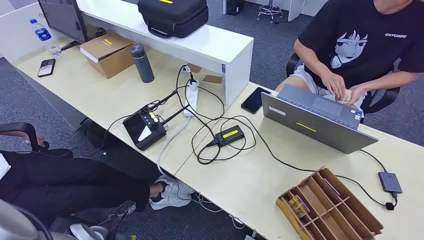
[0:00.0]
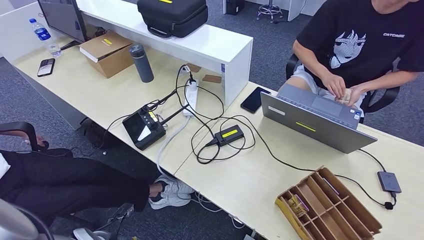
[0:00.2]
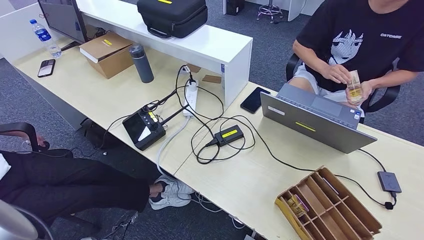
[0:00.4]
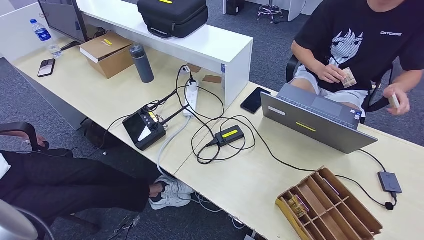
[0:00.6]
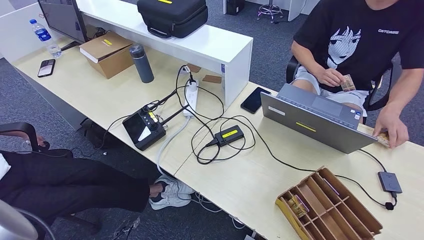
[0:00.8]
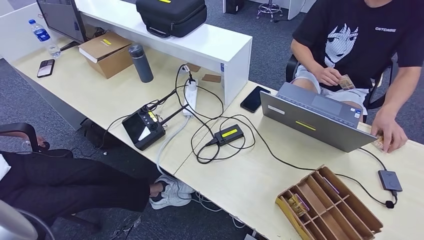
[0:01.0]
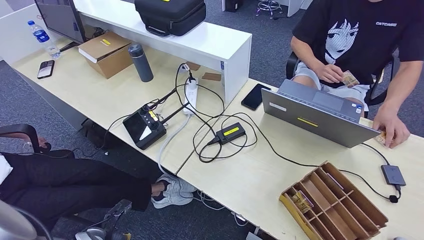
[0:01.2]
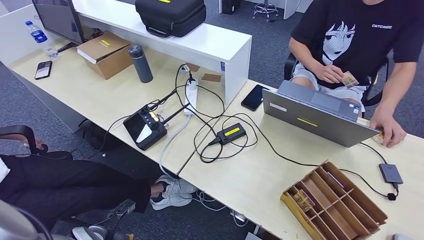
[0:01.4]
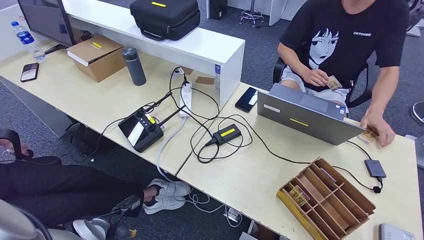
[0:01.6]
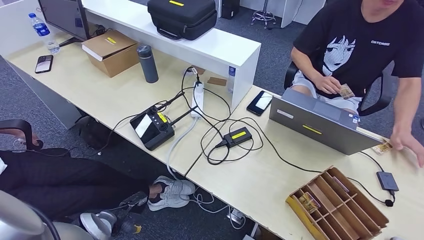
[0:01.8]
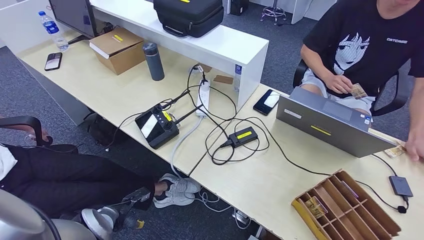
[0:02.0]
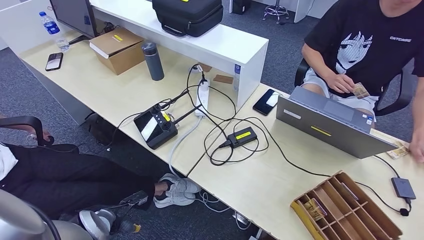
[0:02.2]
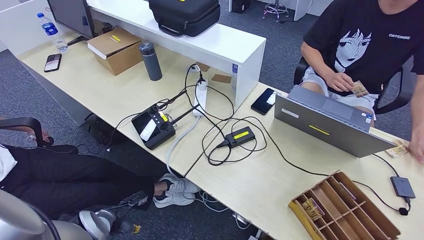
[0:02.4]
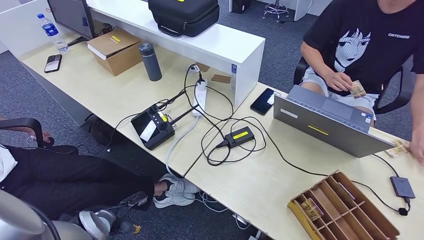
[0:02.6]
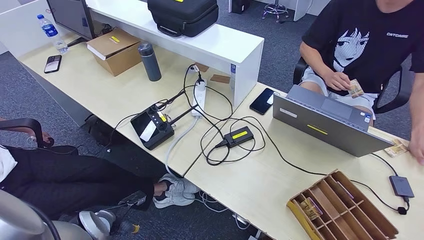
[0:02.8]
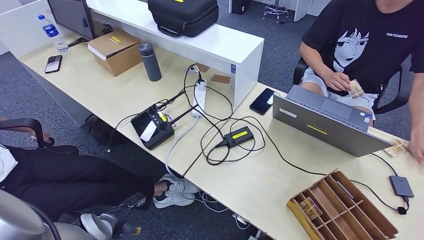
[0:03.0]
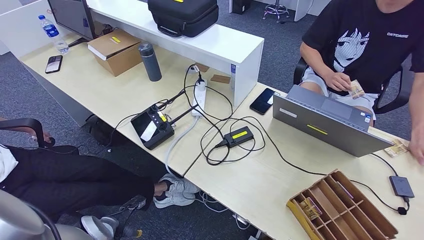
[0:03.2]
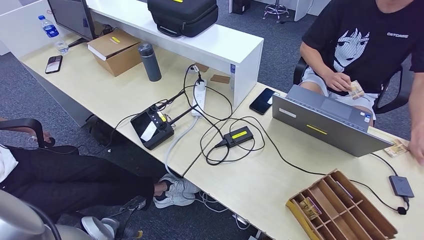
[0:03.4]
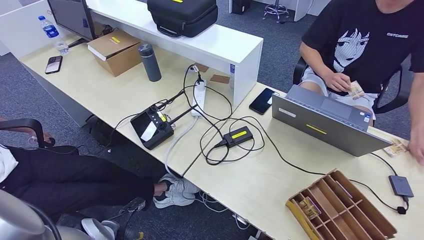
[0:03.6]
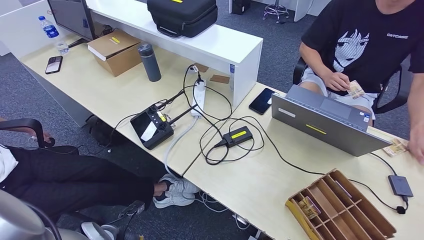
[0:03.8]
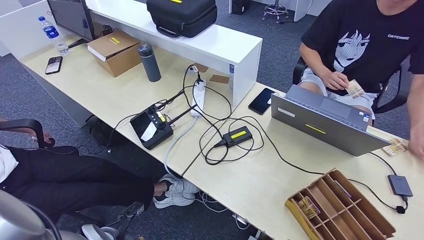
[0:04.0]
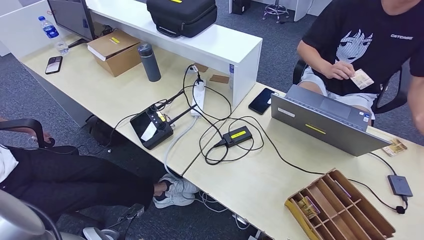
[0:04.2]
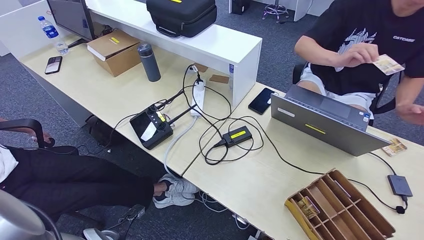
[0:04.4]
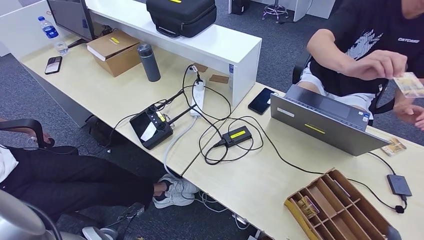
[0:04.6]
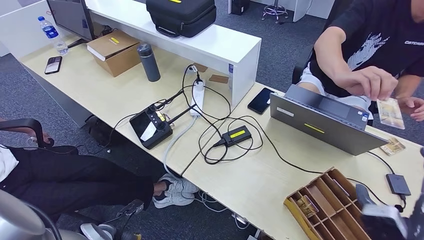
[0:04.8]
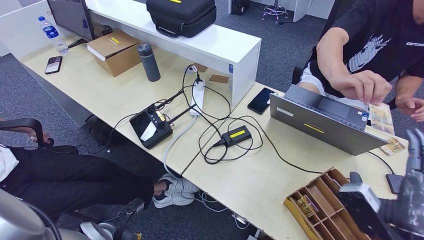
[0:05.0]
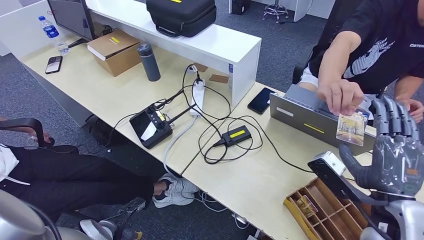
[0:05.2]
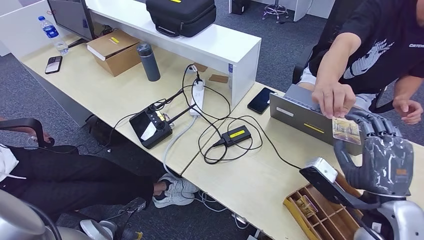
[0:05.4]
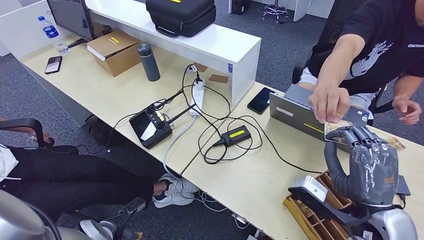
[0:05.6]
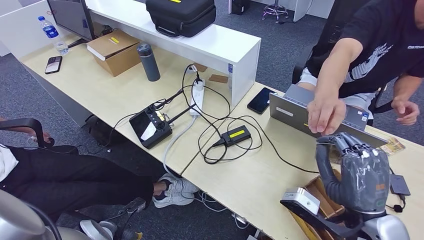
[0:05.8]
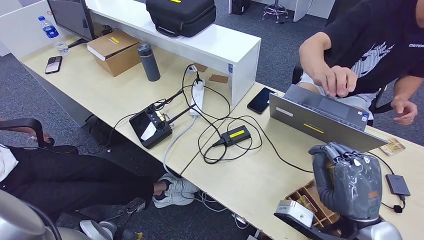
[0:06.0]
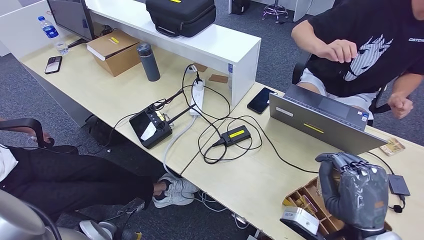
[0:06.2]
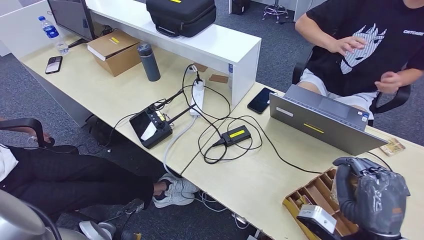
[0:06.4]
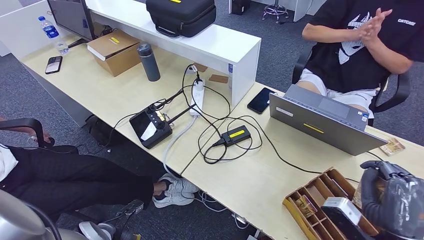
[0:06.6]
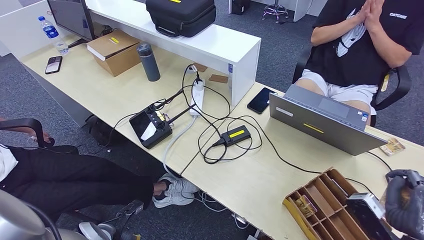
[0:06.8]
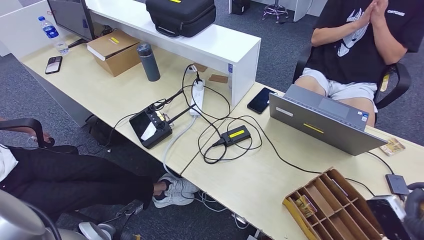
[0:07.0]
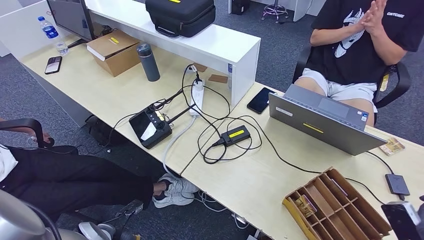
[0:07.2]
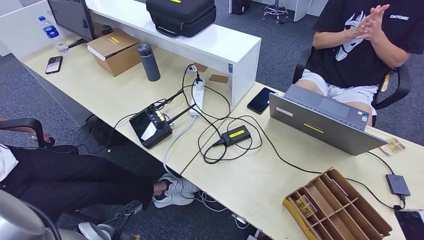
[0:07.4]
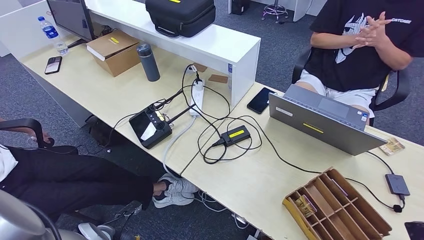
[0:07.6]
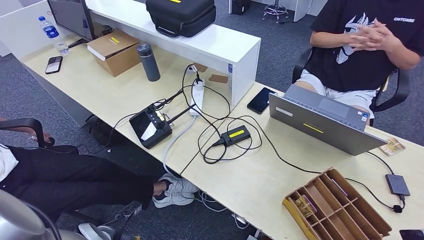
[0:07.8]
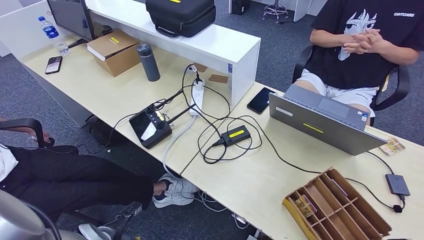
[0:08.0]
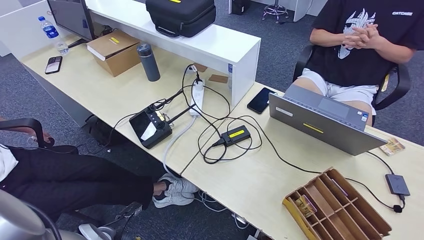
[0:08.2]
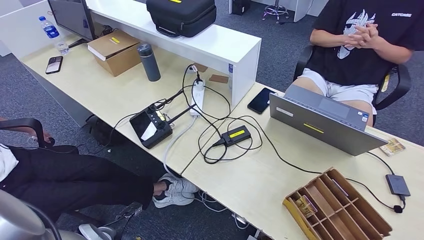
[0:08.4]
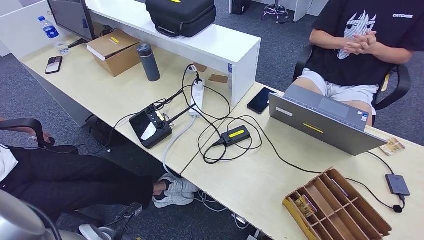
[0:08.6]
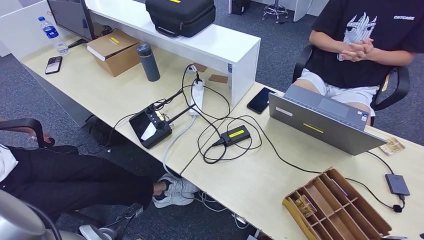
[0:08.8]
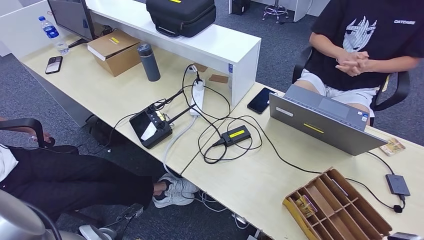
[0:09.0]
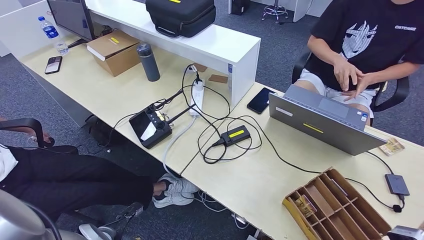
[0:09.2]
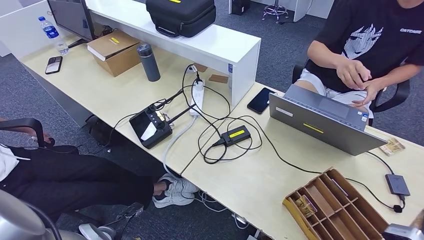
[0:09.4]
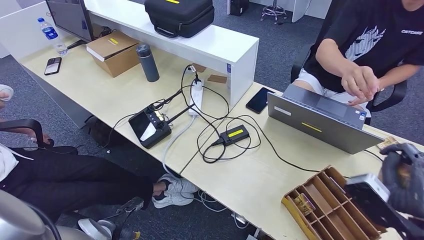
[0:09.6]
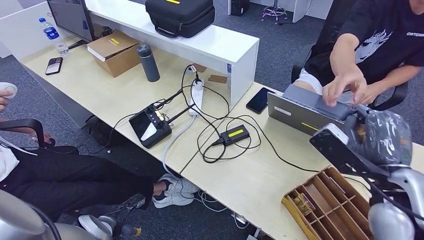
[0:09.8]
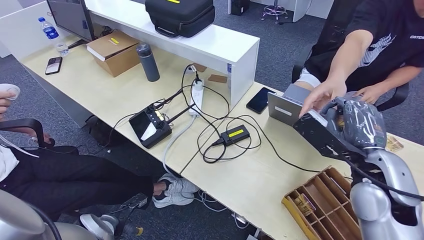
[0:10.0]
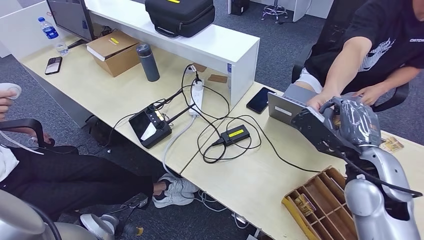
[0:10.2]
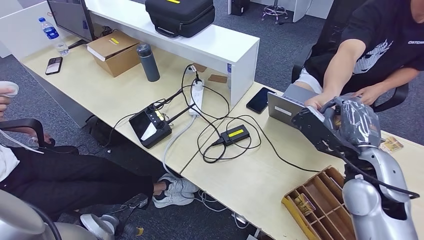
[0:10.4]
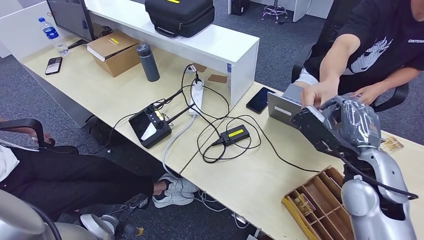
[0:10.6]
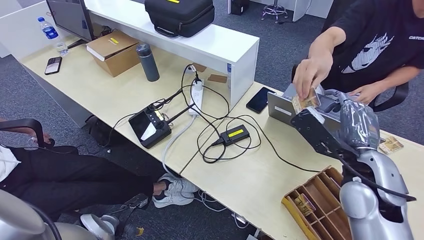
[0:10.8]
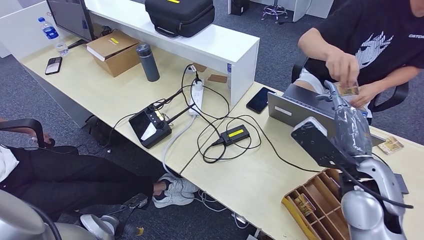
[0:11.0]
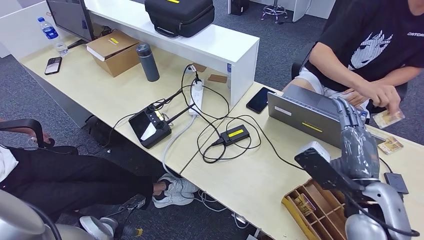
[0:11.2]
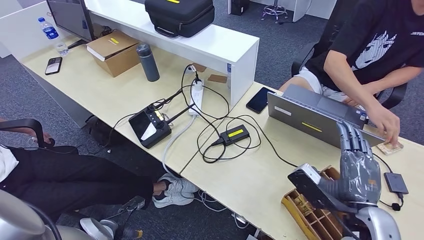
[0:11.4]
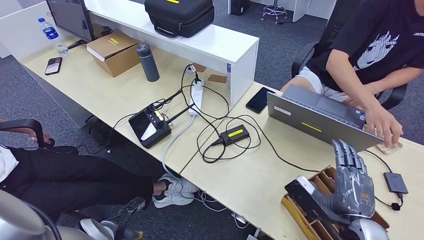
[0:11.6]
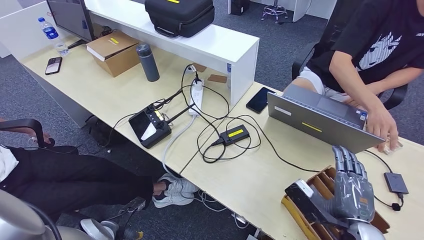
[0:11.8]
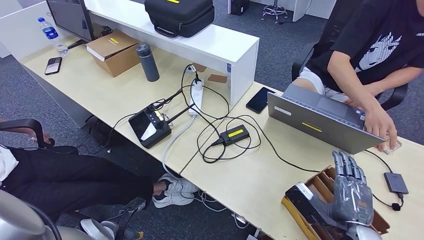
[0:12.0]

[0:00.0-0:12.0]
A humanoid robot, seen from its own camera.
Step, 0:00.0 to 0:06.6: Take the ID card from the person's hand.
Step, 0:07.0 to 0:08.8: Place the ID card on the card reader.
Step, 0:09.0 to 0:10.8: Hand the ID card to the person.
0:03.0 to 0:04.4: The right hand is displaced upward, forward and to the left by some 25 cm. The left hand changes place by roughly 5 cm.
0:04.4 to 0:06.0: The right hand travels to the left and upward by roughly 25 cm.
0:06.0 to 0:07.6: The right hand shifts roughly 25 cm to the right and downward.
0:07.6 to 0:09.0: The right hand goes downward and returns, about 10 cm each way.
0:09.0 to 0:10.4: The right hand shifts about 30 cm to the left and upward.
0:10.4 to 0:12.0: The right hand travels downward, backward and to the right by some 15 cm.

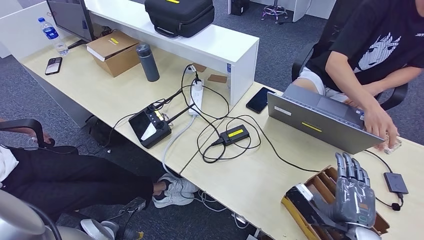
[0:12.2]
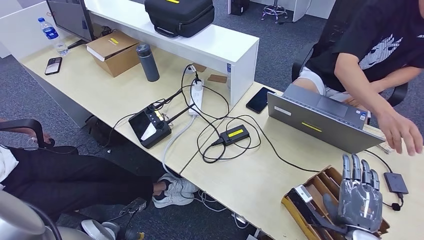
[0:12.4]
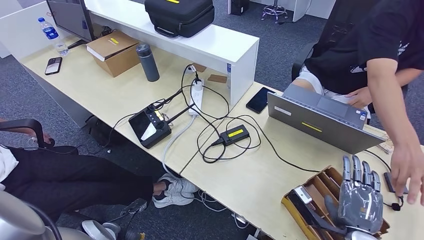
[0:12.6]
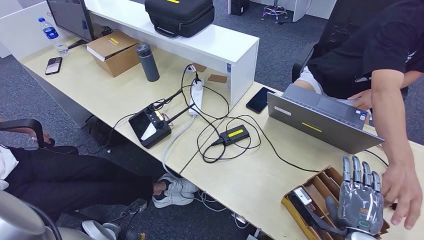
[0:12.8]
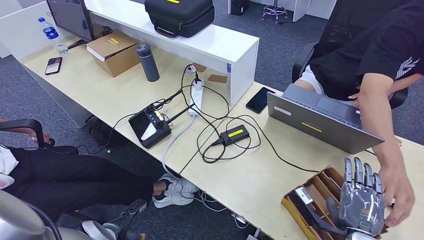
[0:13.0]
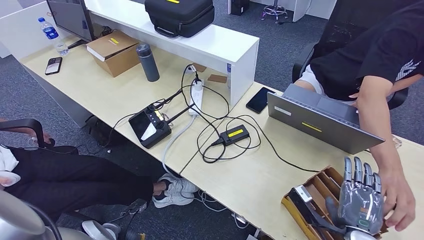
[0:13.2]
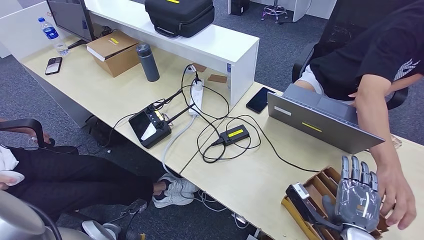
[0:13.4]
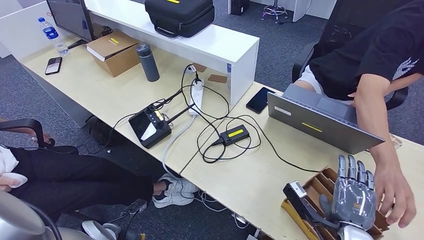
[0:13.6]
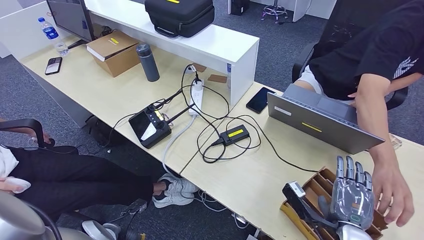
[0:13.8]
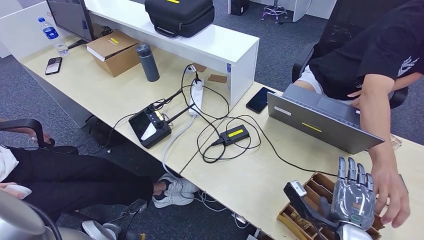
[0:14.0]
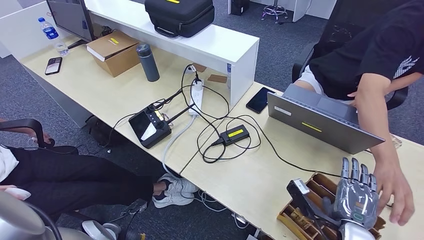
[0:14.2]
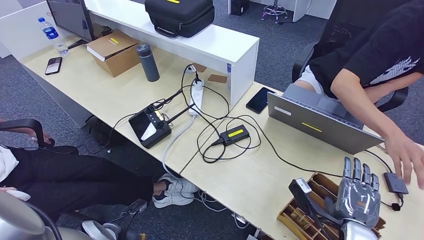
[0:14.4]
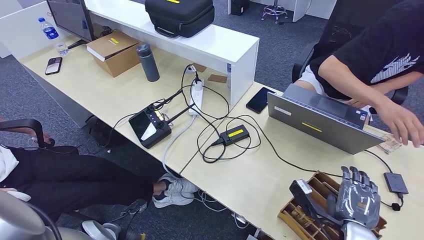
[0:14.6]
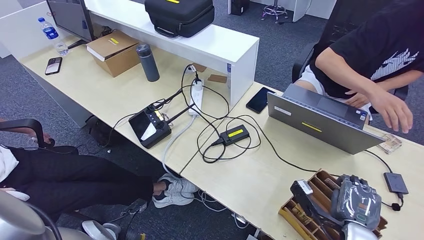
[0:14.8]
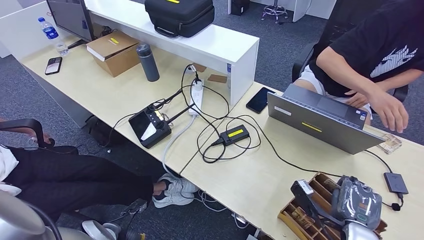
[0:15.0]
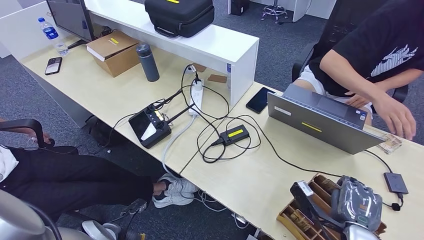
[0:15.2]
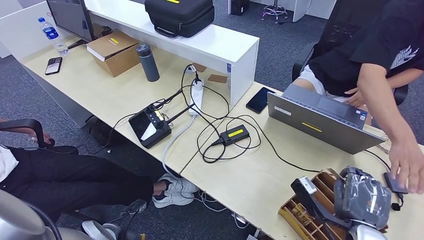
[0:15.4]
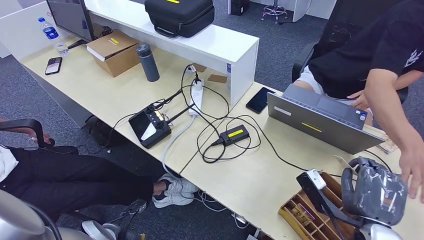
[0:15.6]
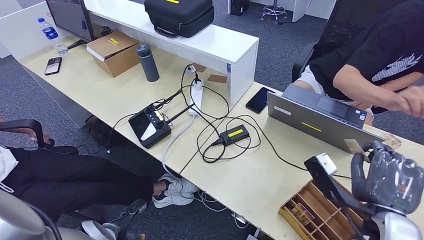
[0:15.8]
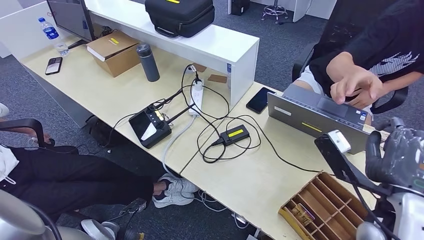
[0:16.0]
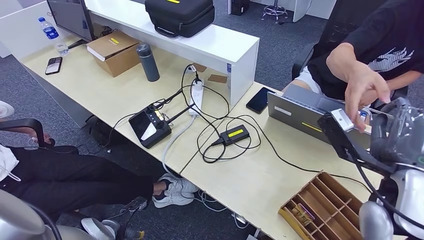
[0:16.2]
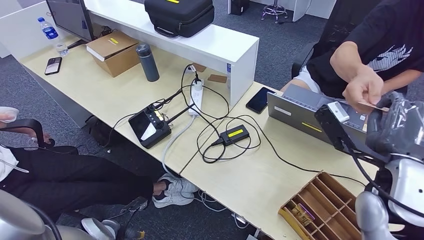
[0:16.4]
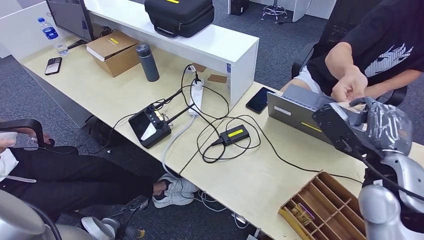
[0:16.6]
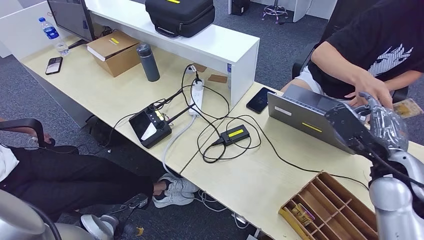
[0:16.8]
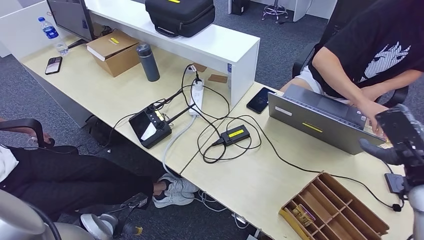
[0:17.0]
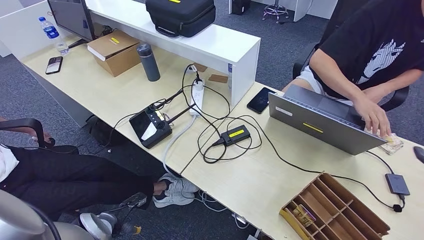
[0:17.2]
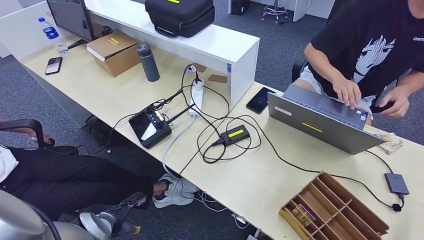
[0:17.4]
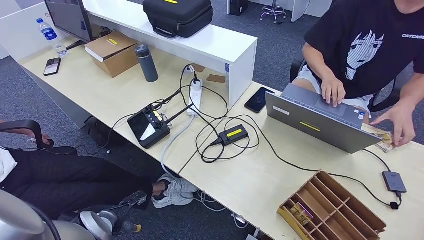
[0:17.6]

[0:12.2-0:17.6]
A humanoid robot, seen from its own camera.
Step, 0:14.0 to 0:15.4: Pick up the room key from the key card box.
Step, 0:15.6 to 0:17.6: Hand the room key to the person.
0:12.2 to 0:15.0: The hands move only a little.
0:15.0 to 0:16.2: The right hand goes some 20 cm upward.
